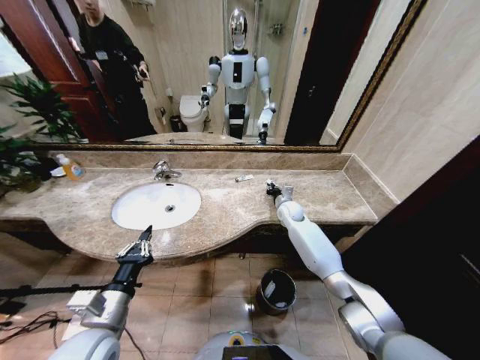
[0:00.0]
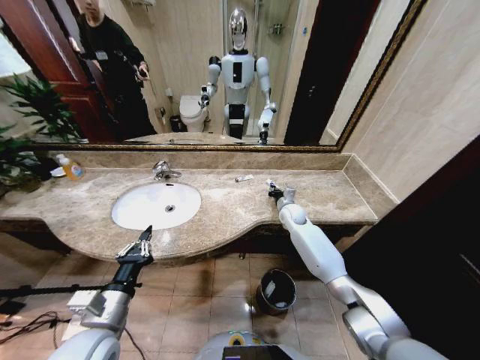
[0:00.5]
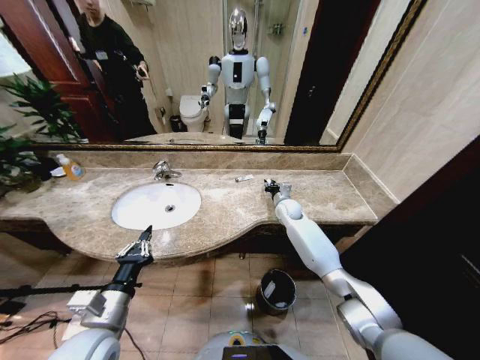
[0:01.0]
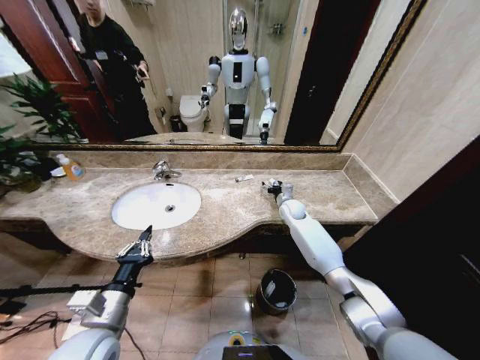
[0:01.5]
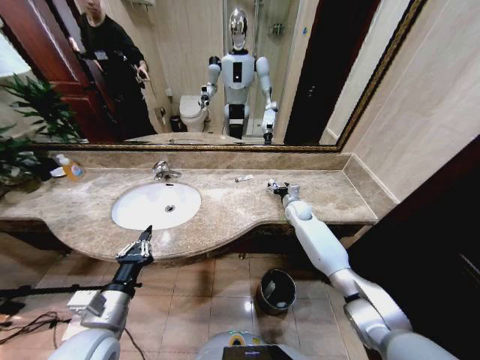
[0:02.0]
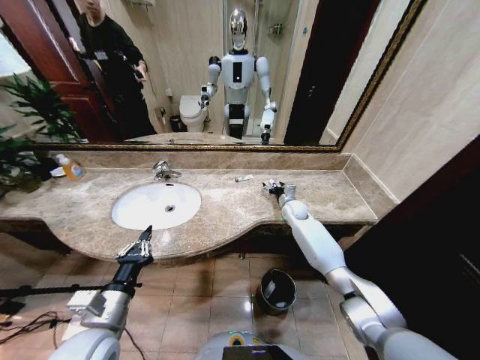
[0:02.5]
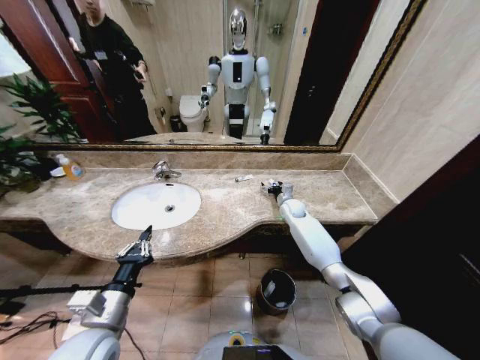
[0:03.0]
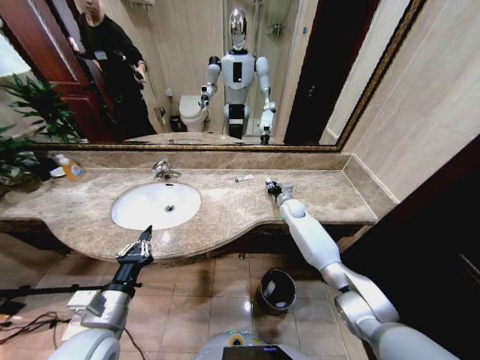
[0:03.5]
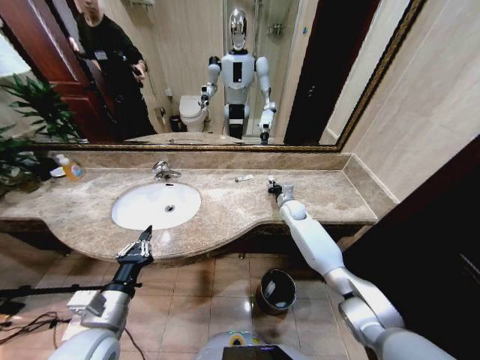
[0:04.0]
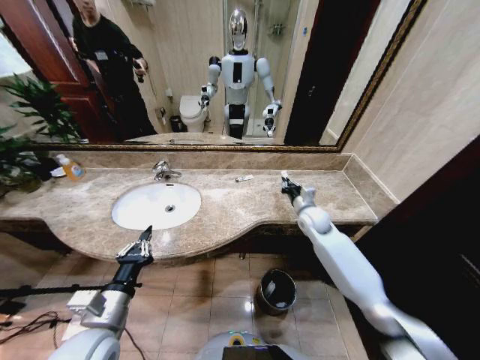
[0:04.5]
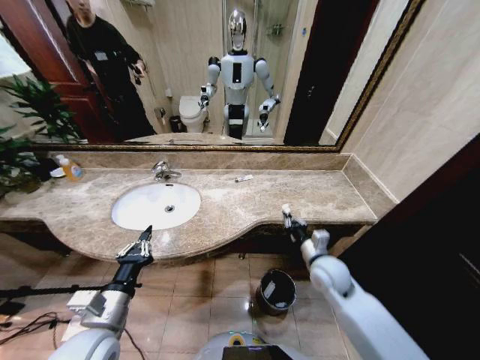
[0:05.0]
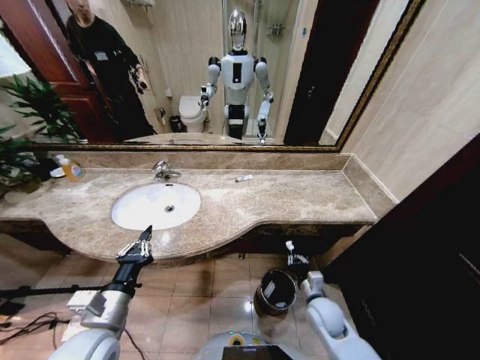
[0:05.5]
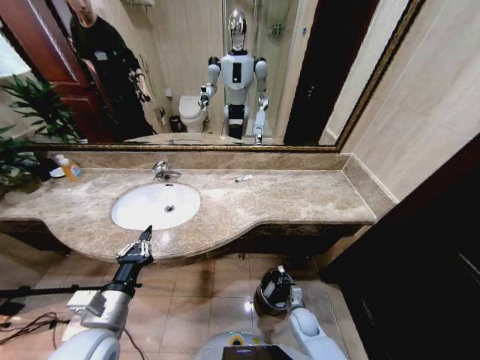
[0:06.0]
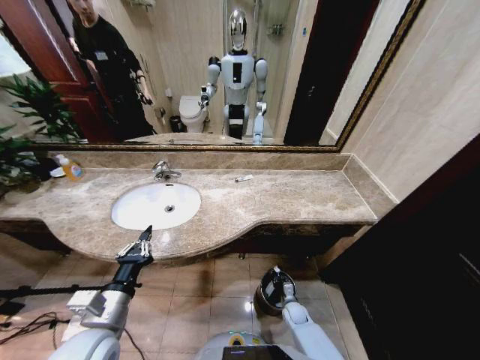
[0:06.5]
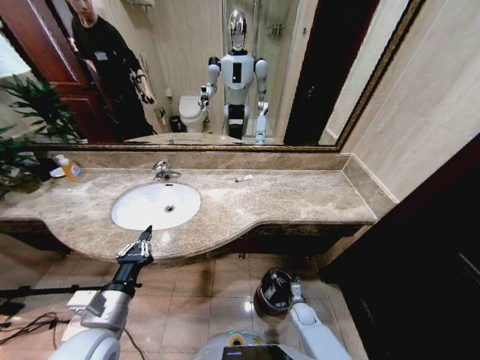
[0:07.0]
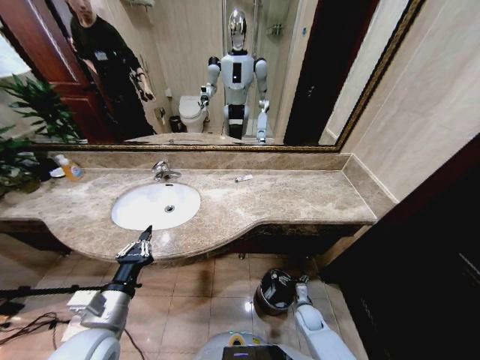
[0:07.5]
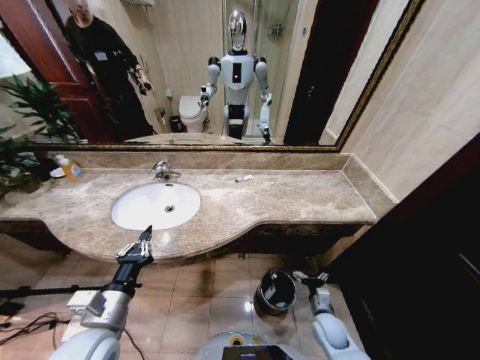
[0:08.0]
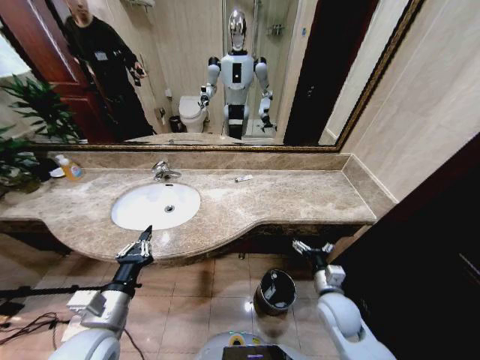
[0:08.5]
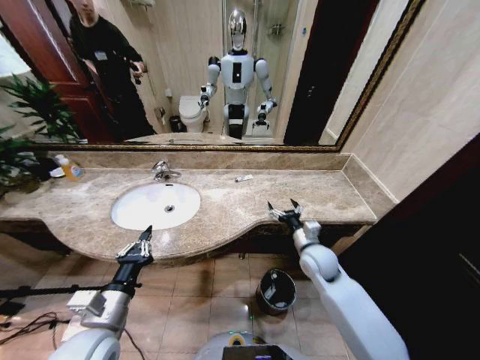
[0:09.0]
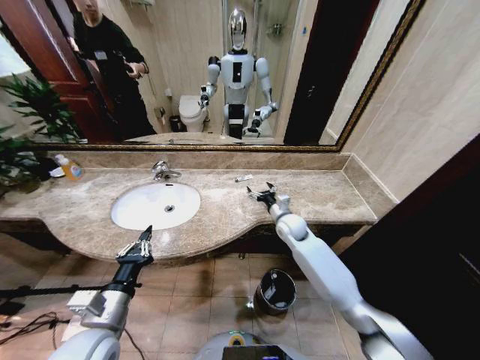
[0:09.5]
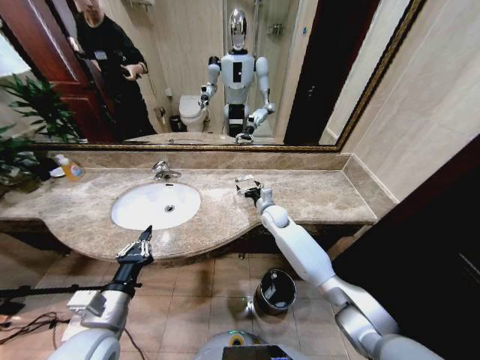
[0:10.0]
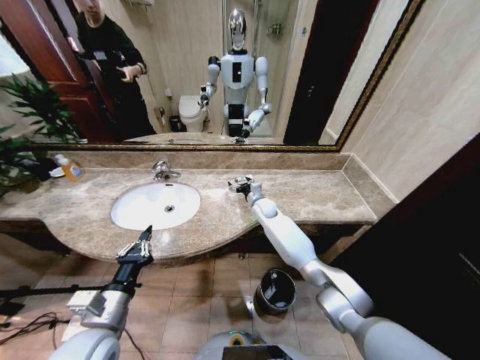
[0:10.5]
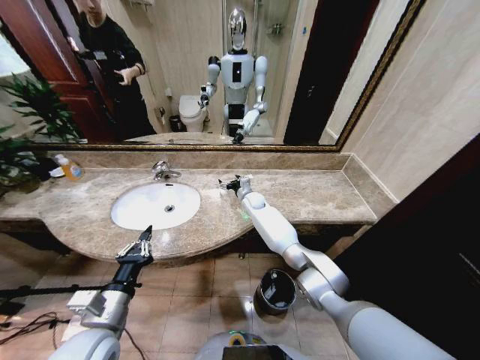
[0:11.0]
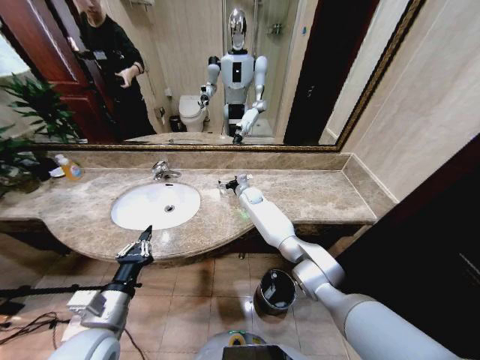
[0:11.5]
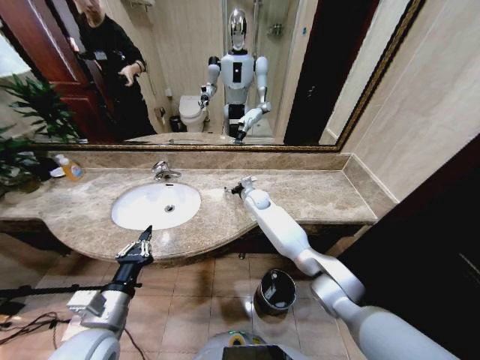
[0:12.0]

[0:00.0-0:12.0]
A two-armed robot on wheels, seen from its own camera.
Task of the whole recording: Pick up the trash from the sink and place it in the trash bin.
0:00.0 to 0:02.0: The right gripper opens up.
0:02.0 to 0:04.0: The right gripper closes up.
0:04.0 to 0:06.0: The right gripper moves backward and downward, about 40 cm.
0:06.0 to 0:08.0: The right gripper goes about 10 cm upward and to the right, and opens.
0:08.0 to 0:10.0: The right gripper heads forward, upward and to the left, covering approximately 40 cm.
0:10.0 to 0:12.0: The right gripper is displaced forward and to the left by roughly 10 cm.

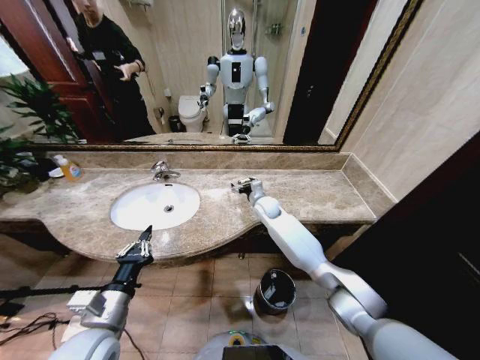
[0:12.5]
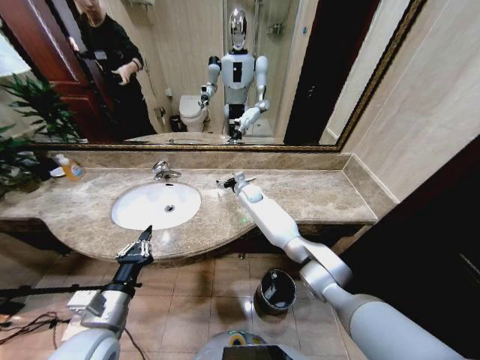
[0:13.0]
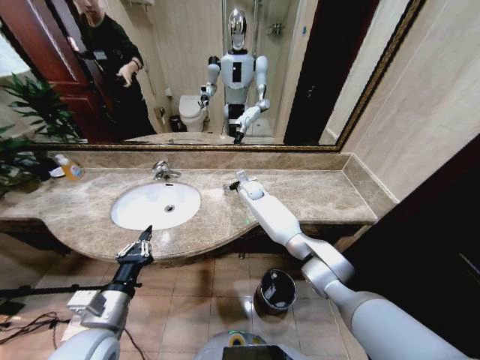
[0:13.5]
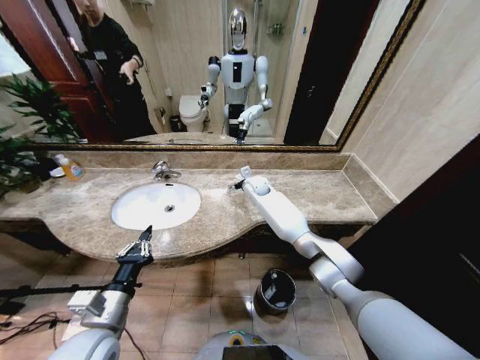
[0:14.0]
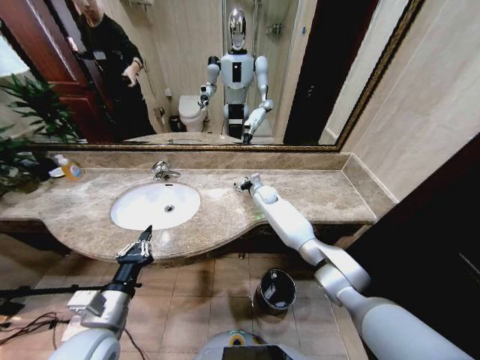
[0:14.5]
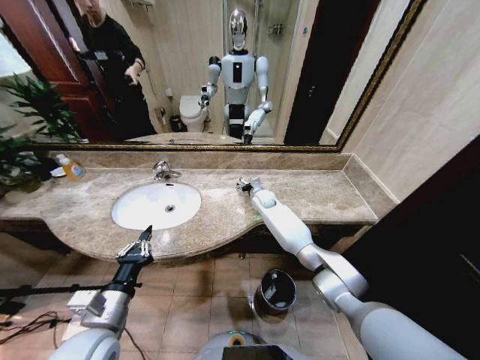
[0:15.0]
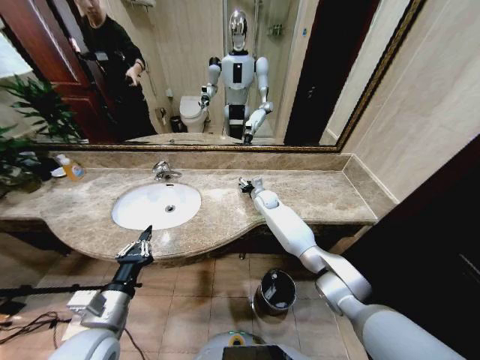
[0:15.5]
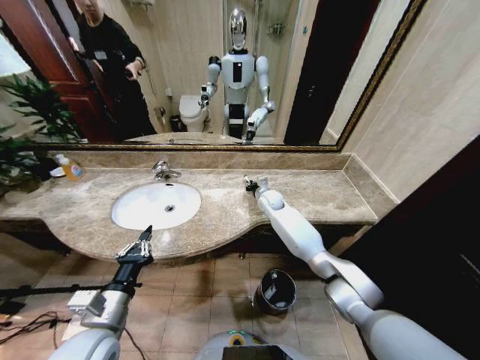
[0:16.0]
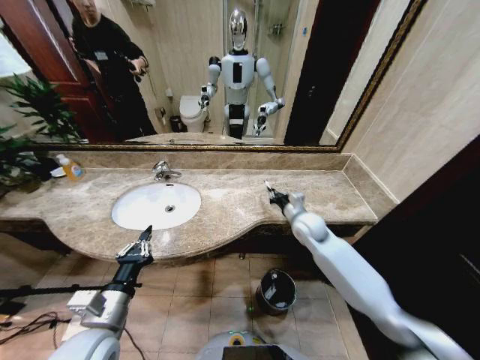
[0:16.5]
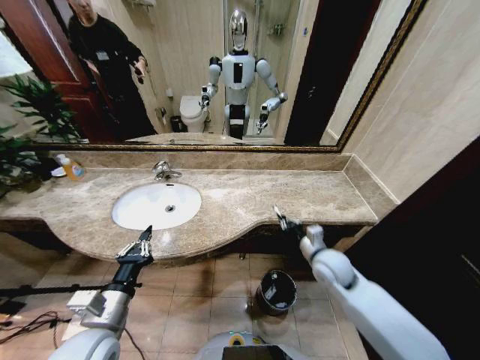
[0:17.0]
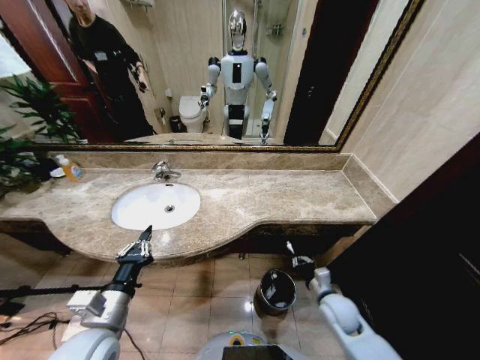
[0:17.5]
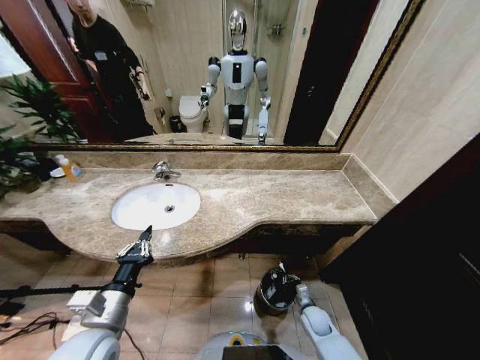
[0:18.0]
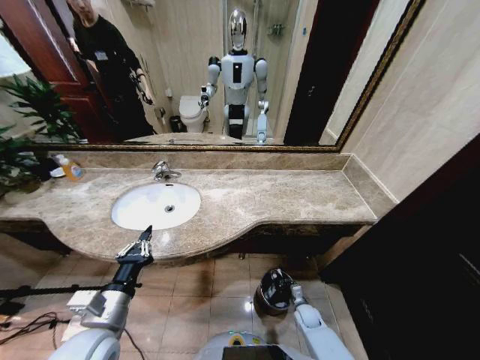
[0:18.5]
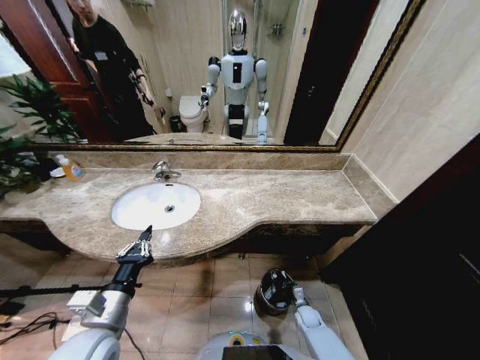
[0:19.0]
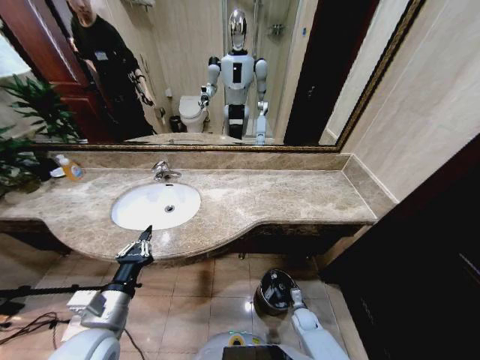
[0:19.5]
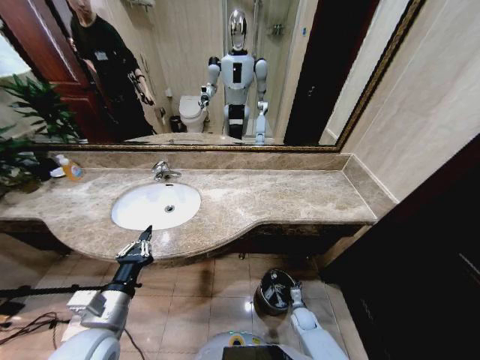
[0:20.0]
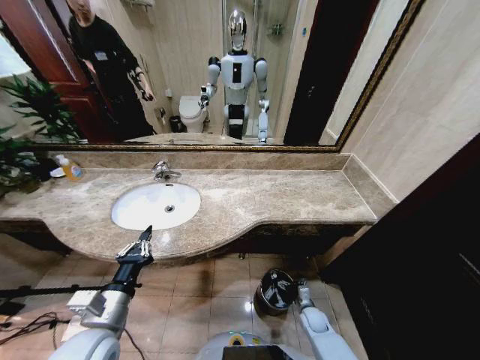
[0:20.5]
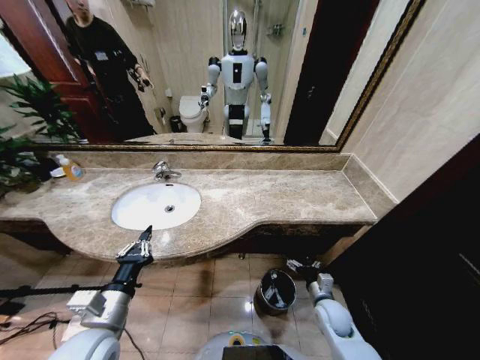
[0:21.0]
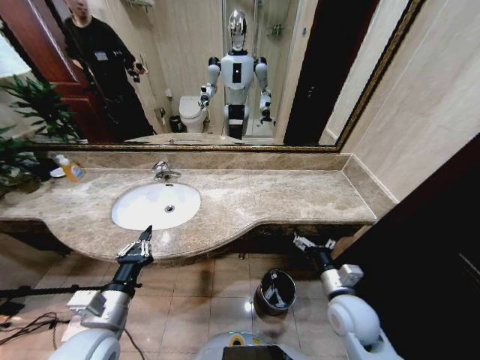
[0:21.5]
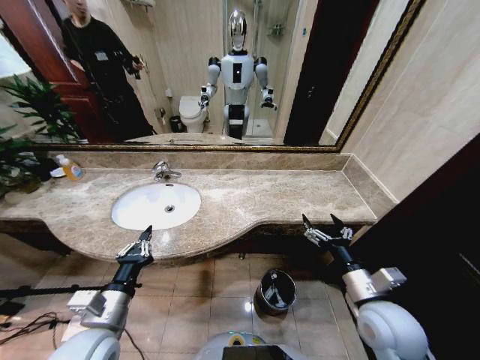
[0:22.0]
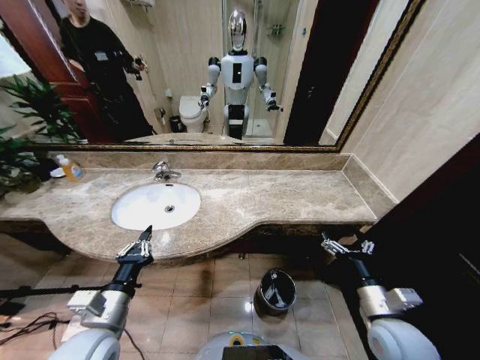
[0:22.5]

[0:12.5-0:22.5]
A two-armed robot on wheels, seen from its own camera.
Task of the whole recording: Pick up the trash from the sink and place it in the trash bin.
0:12.5 to 0:14.5: The right gripper goes roughly 5 cm forward.
0:14.5 to 0:16.5: The right gripper heads backward and to the right, covering some 20 cm, and closes its fingers.
0:16.5 to 0:18.5: The right gripper moves downward and backward, approximately 40 cm.
0:18.5 to 0:20.5: The right gripper opens up.
0:20.5 to 0:22.5: The right gripper is displaced upward by about 30 cm.

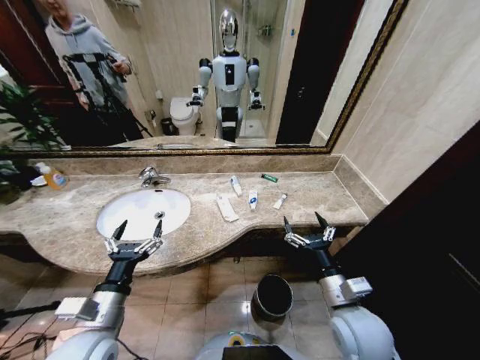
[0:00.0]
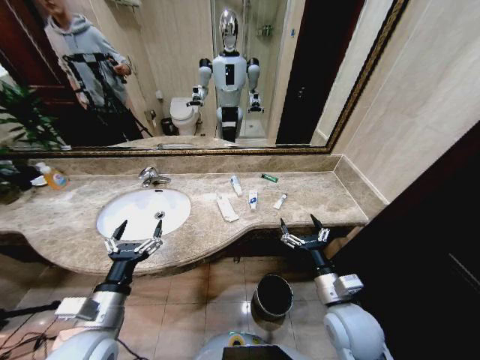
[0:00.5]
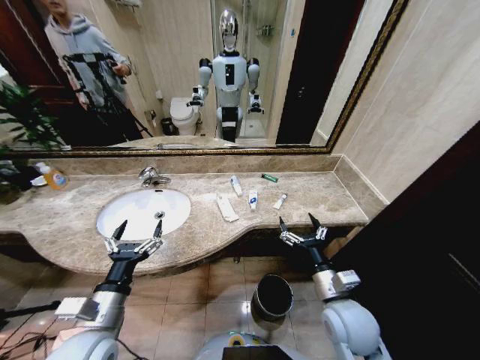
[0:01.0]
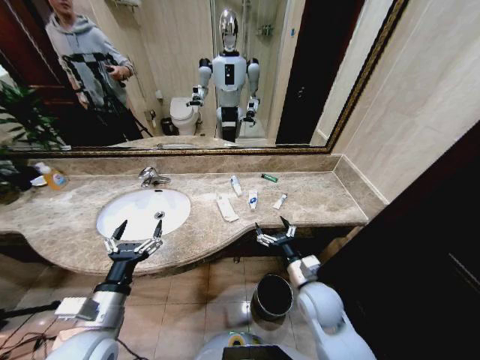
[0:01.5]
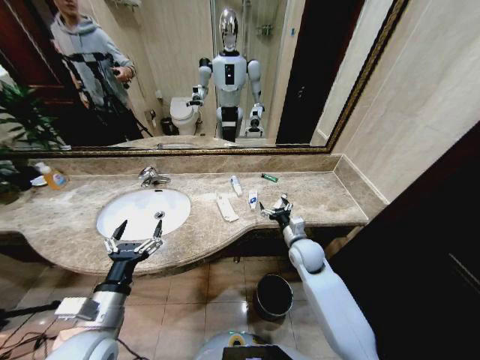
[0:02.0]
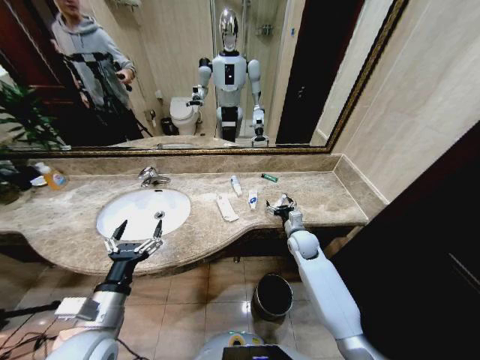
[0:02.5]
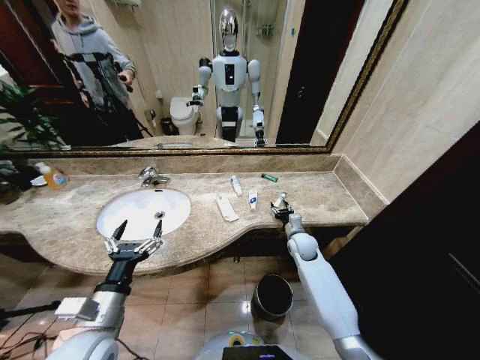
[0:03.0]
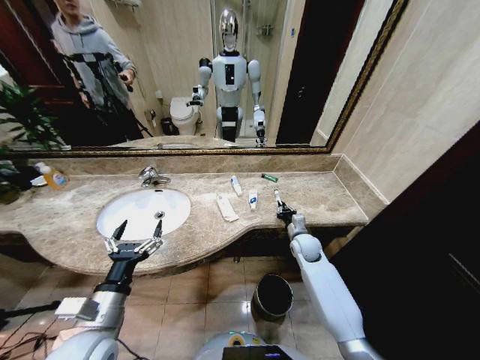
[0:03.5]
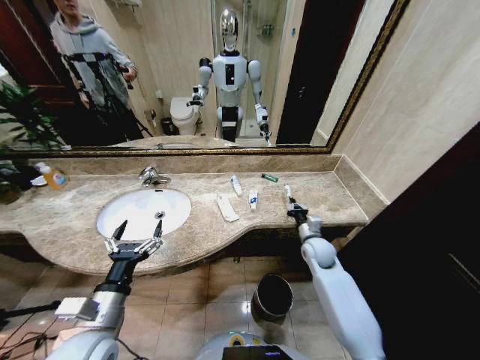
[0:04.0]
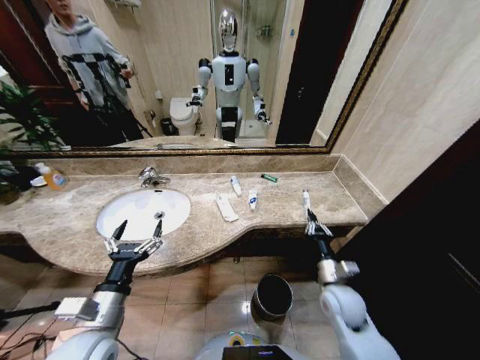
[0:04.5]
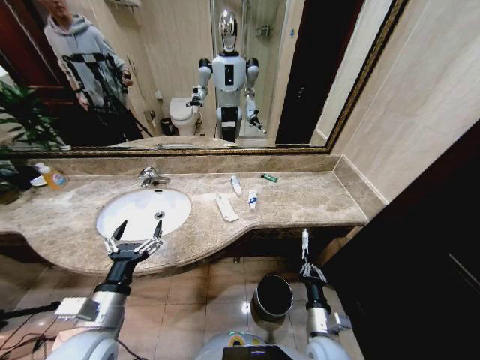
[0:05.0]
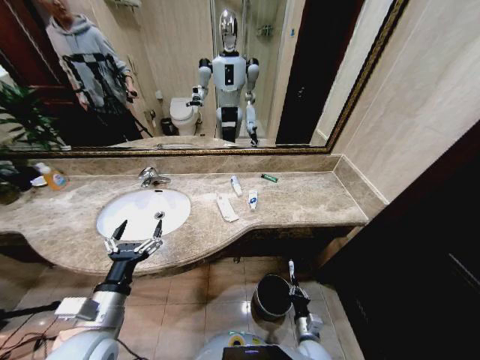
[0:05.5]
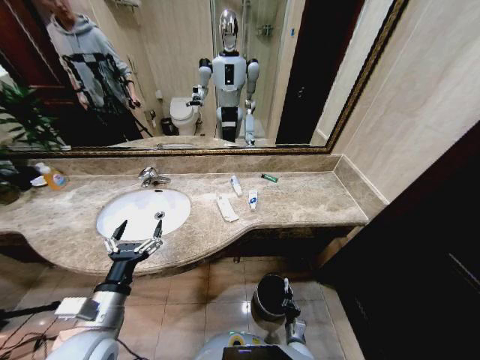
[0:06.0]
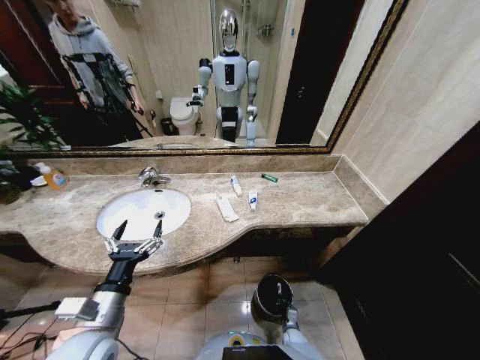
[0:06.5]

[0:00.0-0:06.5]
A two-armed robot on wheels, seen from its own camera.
Task of the whole recording: Pick up the trash from the sink and place it in the trash bin.
0:02.0 to 0:04.5: The right gripper is displaced backward and to the right by some 15 cm, and closes up.
0:04.5 to 0:06.5: The right gripper is displaced downward by about 40 cm.
